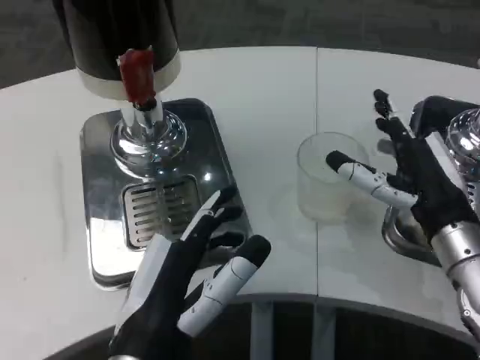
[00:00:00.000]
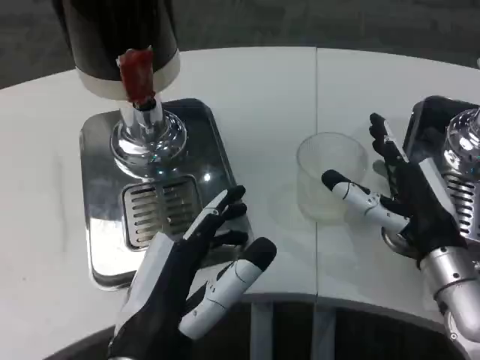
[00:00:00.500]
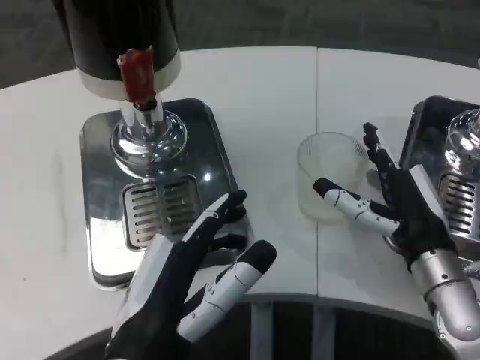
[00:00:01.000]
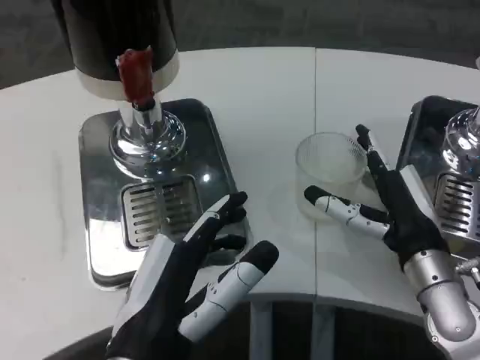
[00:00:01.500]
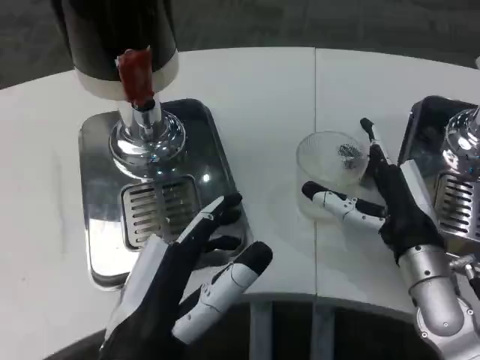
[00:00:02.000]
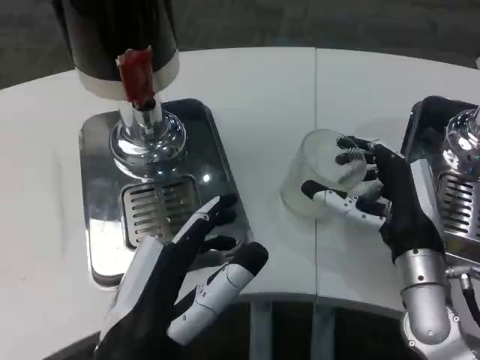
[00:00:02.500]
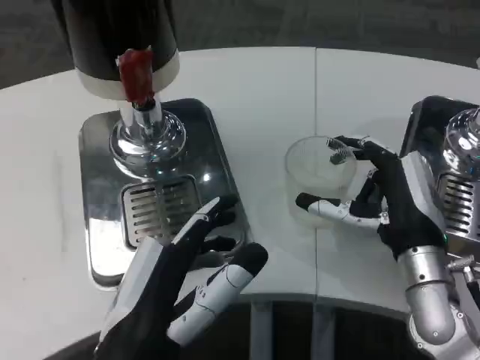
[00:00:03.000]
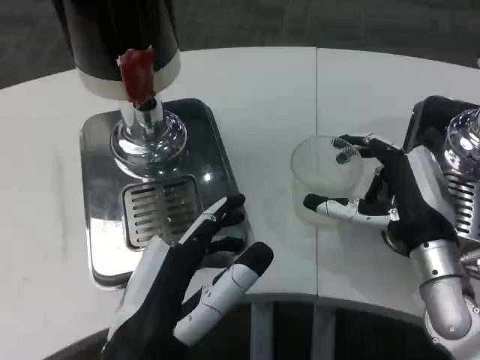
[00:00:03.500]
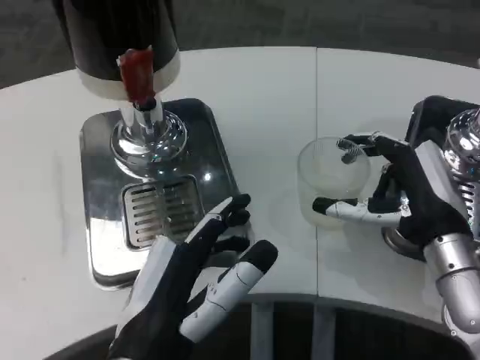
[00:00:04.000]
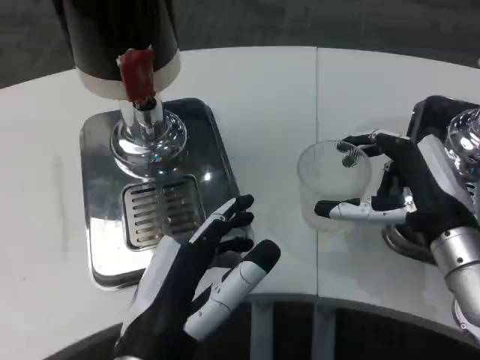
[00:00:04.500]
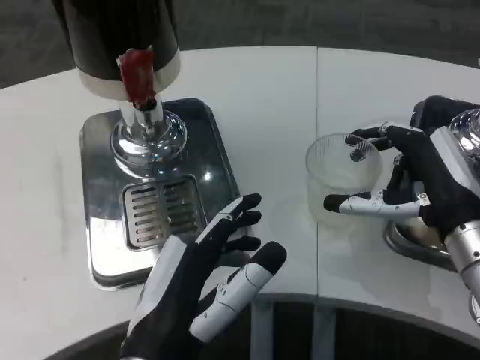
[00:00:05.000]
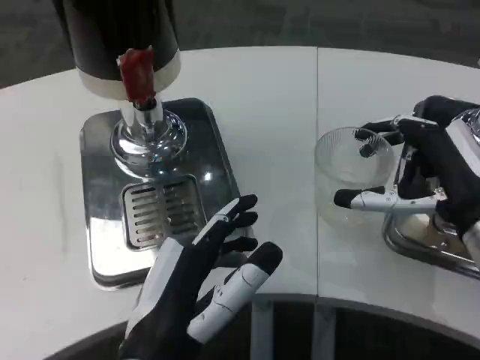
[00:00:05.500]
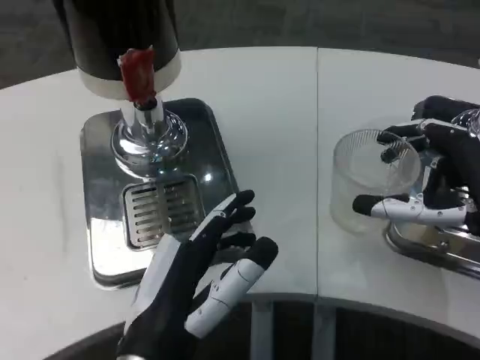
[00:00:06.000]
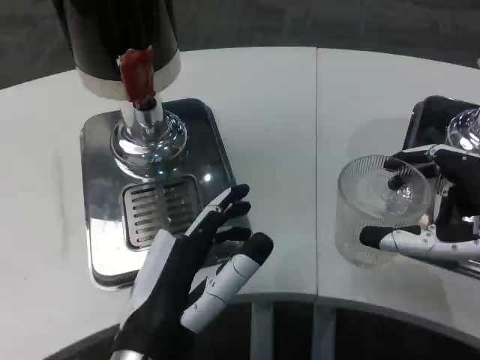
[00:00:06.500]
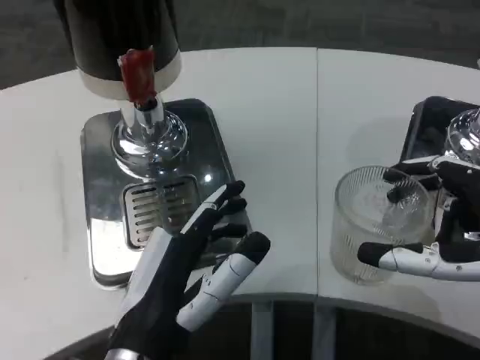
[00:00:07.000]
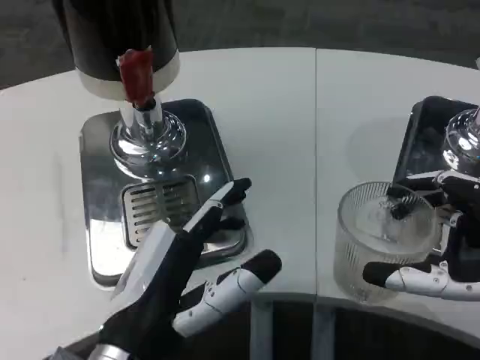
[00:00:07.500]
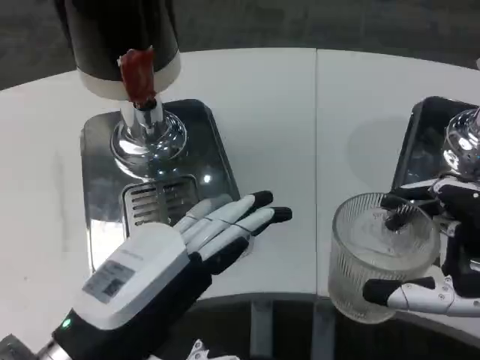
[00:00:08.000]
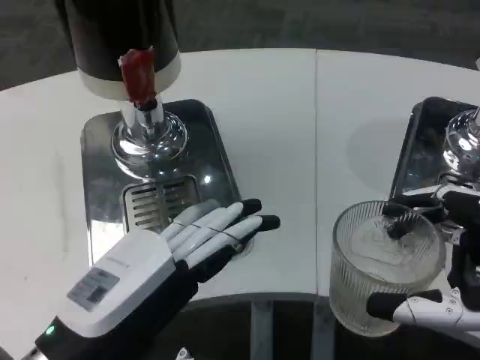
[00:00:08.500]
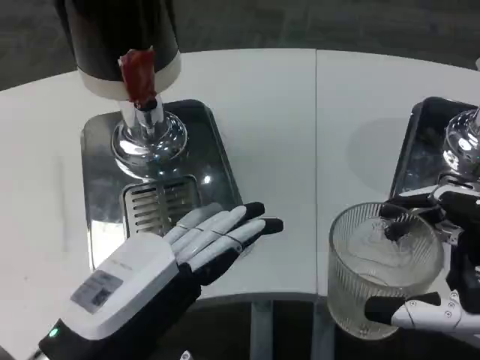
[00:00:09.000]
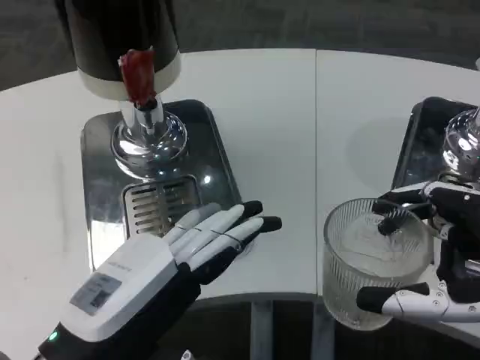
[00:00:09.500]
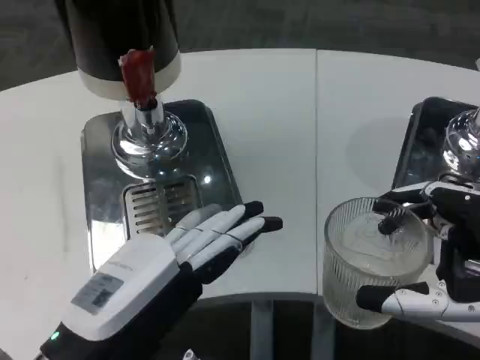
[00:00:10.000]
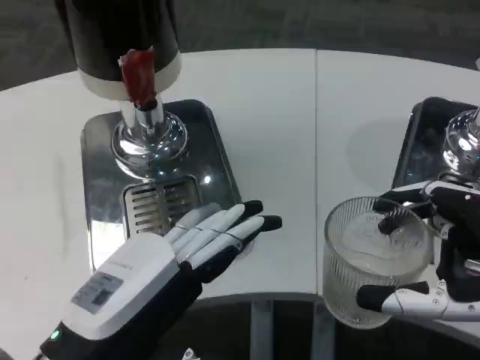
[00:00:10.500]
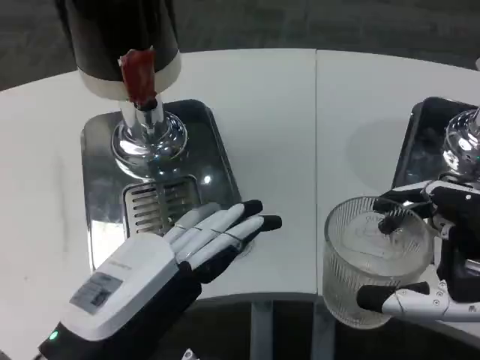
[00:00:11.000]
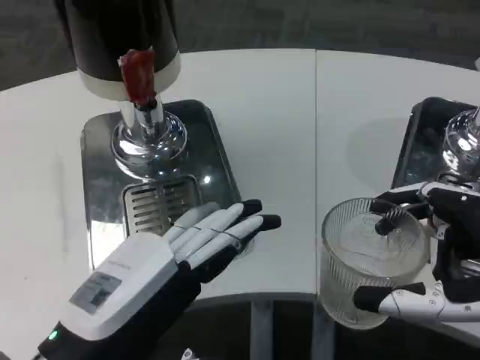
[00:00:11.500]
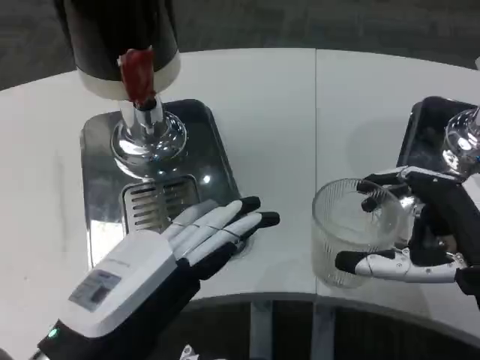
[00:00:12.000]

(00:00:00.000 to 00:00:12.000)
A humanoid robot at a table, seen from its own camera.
Task of the whole recording: Grasp the cup under the faucet to collect the drink, then remove the cup.
00:00:00.000 - 00:00:04.000: There are only small adjustments of the hands.
00:00:04.000 - 00:00:06.000: The right hand heads backward and upward, covering approximately 10 cm.
00:00:06.000 - 00:00:08.000: The right hand heads backward, covering approximately 10 cm, while the left hand goes some 5 cm to the left.
00:00:08.000 - 00:00:10.000: There are only small adjustments of the hands.
00:00:10.000 - 00:00:12.000: The right hand shifts approximately 5 cm forward.

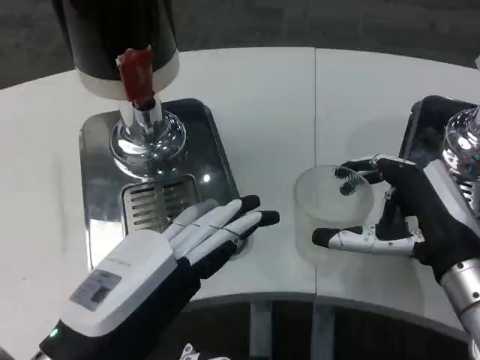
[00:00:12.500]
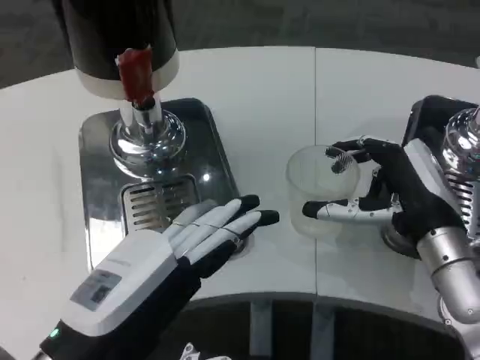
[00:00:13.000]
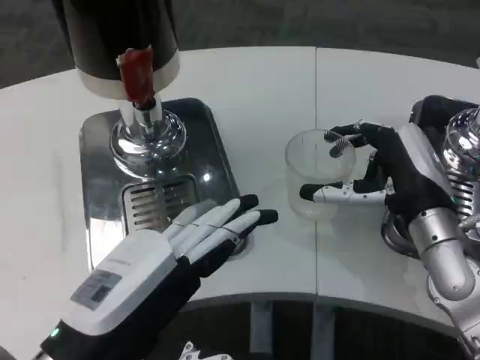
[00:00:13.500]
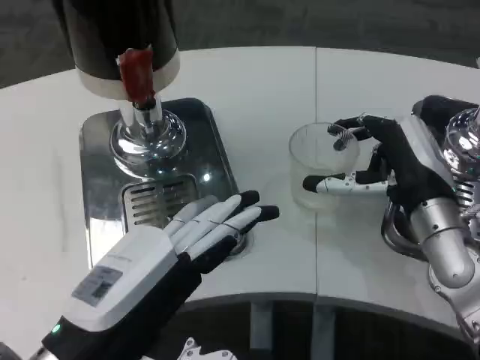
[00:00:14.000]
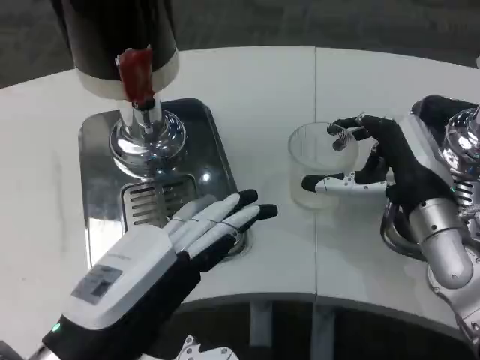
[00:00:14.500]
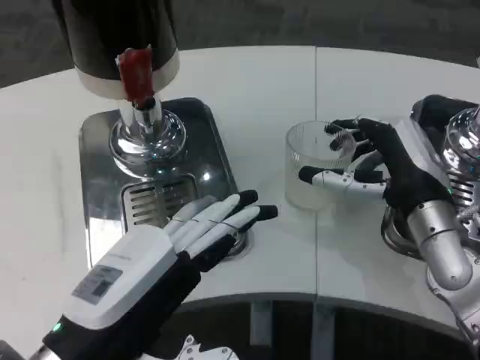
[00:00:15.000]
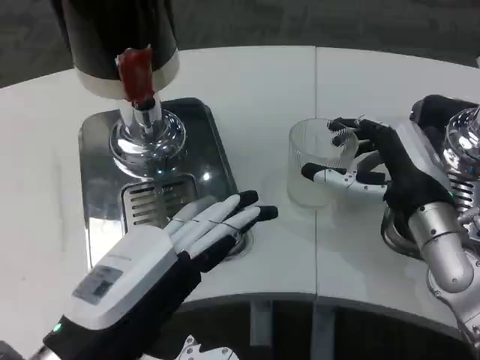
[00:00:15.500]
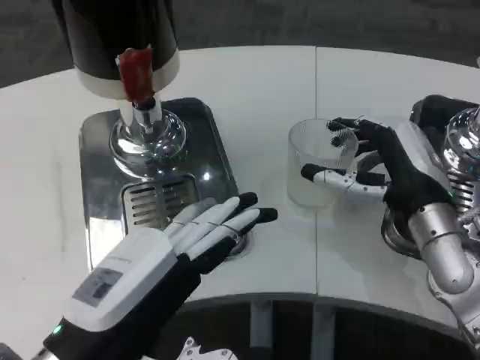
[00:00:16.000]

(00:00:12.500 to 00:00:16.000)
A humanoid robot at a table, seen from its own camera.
Task of the whole recording: Grasp the cup under the faucet to collect the drink, then remove the cup.
00:00:12.500 - 00:00:14.500: The right hand is displaced forward by roughly 10 cm.
00:00:14.500 - 00:00:16.000: Neither hand changes place.

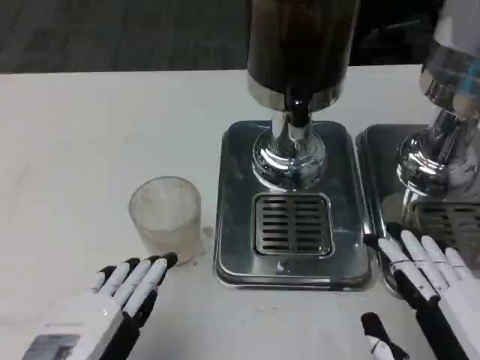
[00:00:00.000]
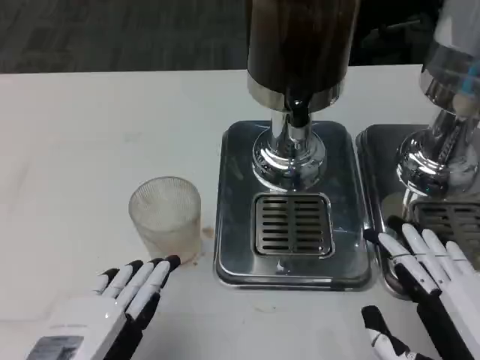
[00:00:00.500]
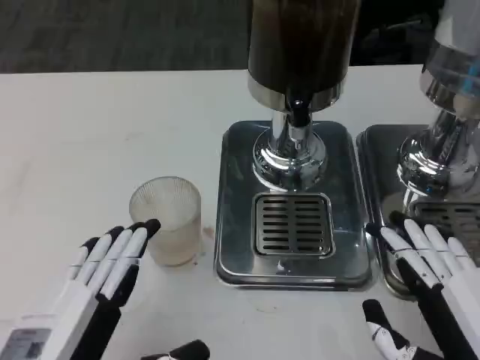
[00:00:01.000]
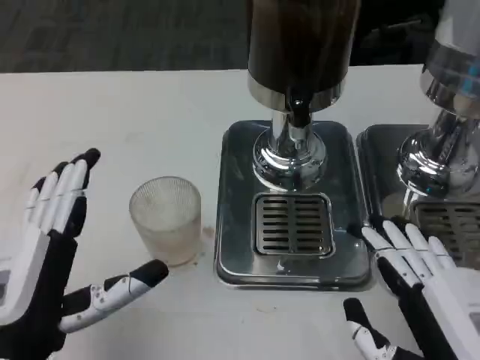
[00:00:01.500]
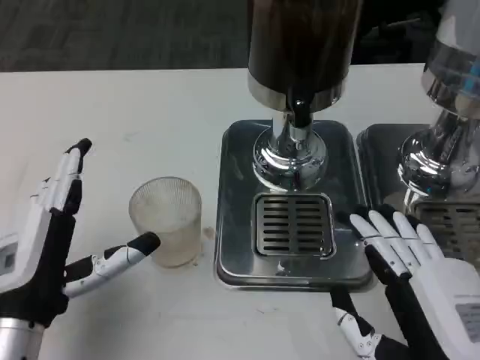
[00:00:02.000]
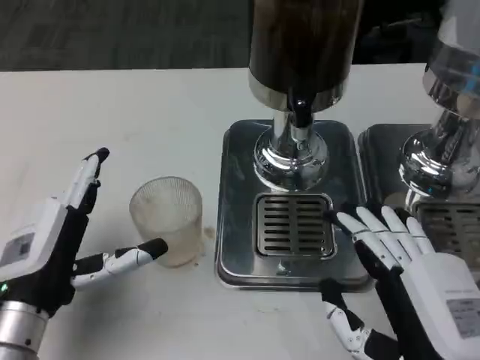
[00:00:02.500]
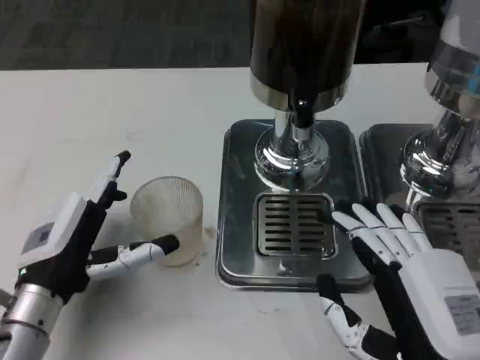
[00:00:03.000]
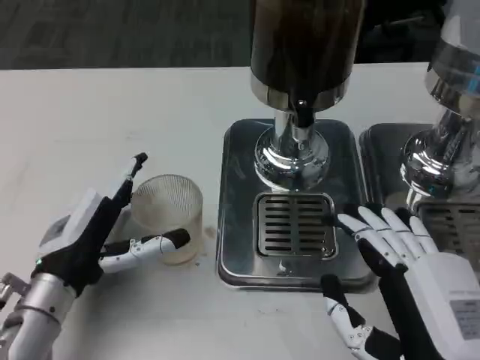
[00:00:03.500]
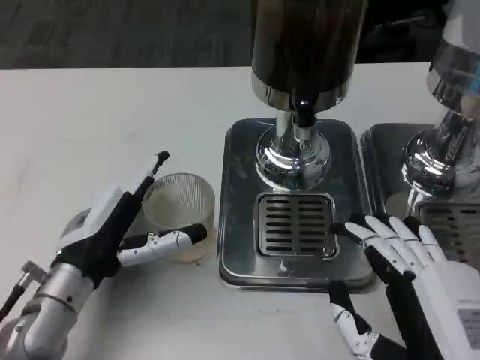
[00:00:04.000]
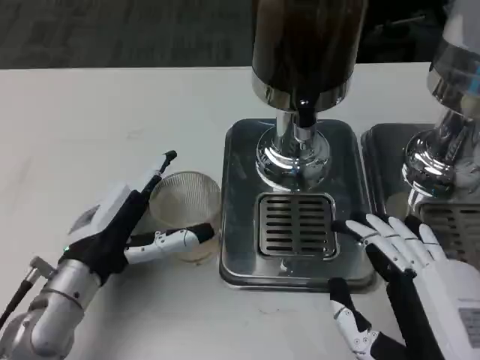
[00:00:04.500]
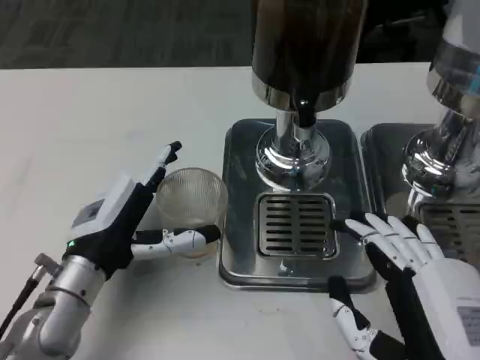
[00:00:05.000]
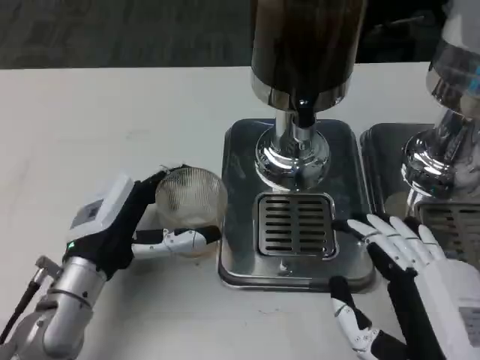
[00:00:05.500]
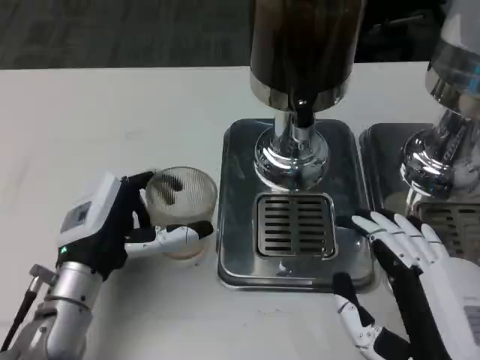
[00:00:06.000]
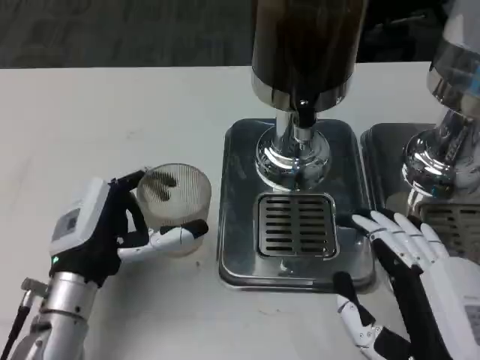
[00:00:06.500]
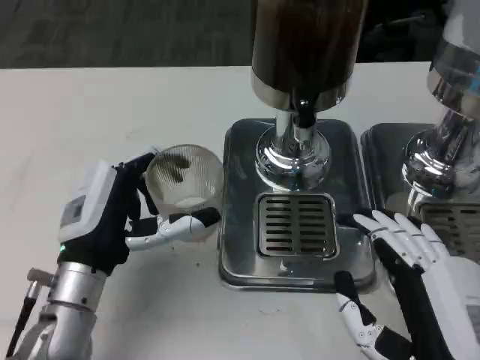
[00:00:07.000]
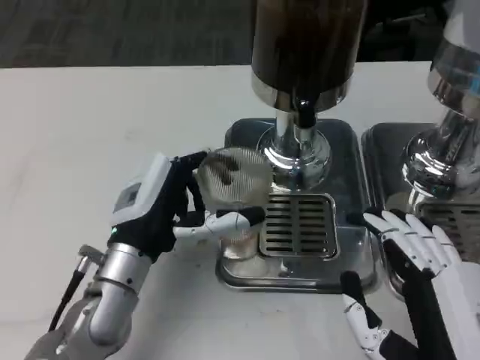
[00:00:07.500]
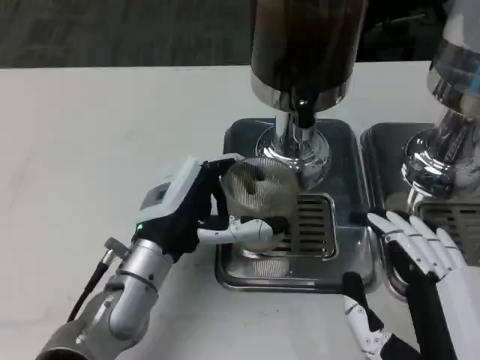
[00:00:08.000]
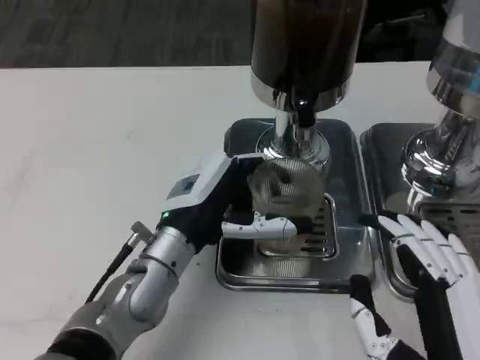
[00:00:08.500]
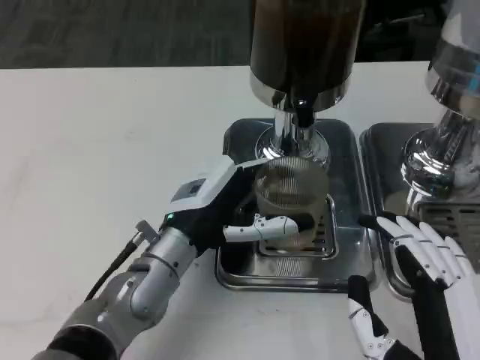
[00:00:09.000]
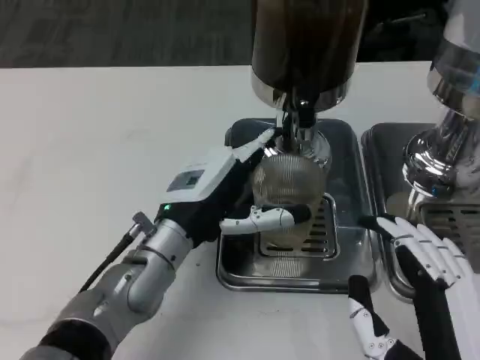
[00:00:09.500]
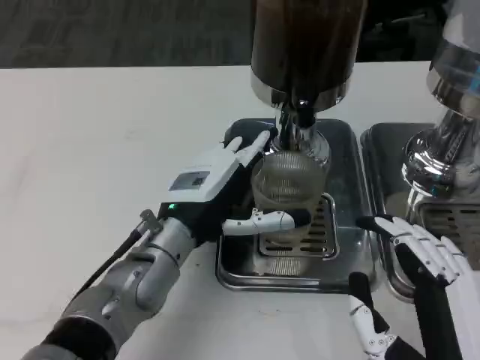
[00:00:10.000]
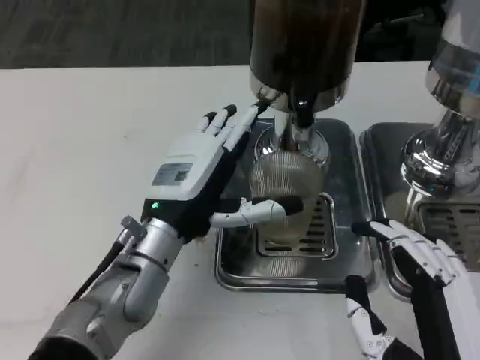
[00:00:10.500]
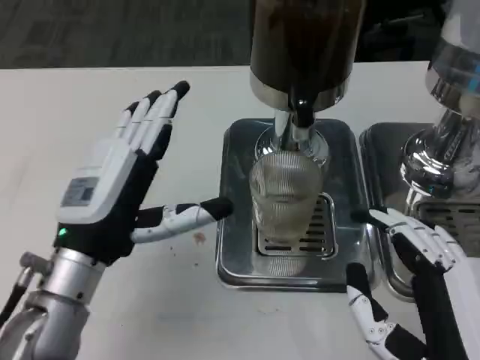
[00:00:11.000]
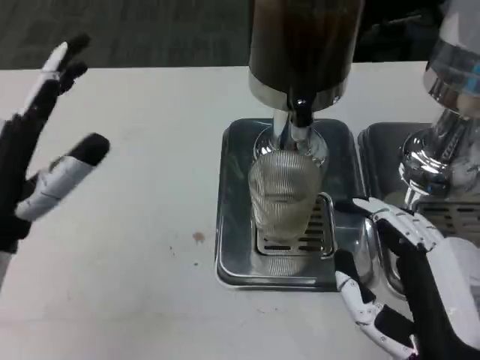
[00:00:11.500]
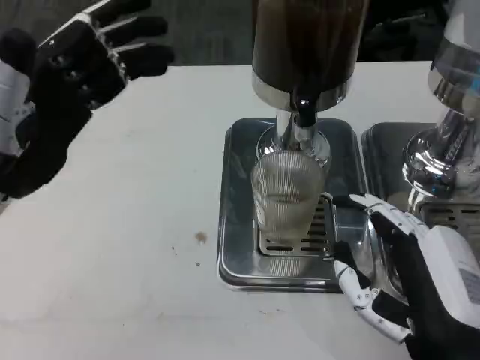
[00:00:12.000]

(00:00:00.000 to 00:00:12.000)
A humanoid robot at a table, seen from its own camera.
Task of the whole recording: Grasp the cup under the faucet to collect the drink, then remove the cup.
00:00:00.000 - 00:00:02.000: The left hand is displaced forward and downward by some 10 cm.
00:00:02.000 - 00:00:04.000: The left hand moves forward, roughly 5 cm.
00:00:04.000 - 00:00:06.000: The hands make only small movements.
00:00:06.000 - 00:00:08.000: The left hand shifts approximately 5 cm to the right.
00:00:08.000 - 00:00:10.000: The hands stay close to where they were, moving slightly.
00:00:10.000 - 00:00:12.000: The right hand travels forward by some 5 cm. Meanwhile the left hand heads to the left and upward, covering some 20 cm.
